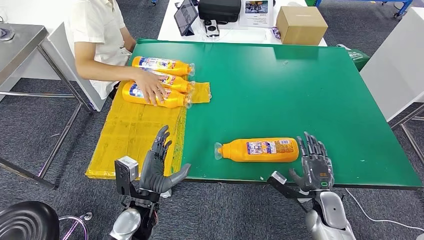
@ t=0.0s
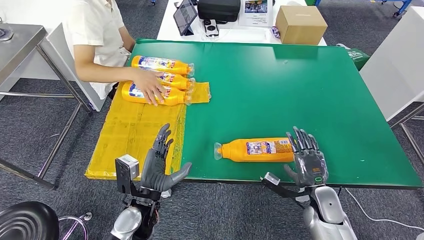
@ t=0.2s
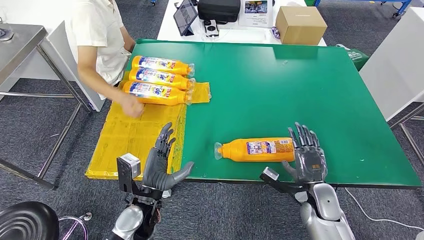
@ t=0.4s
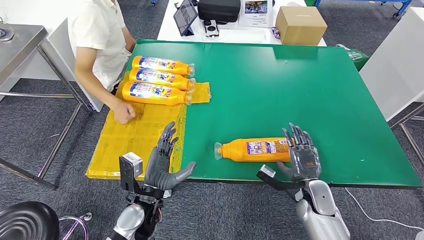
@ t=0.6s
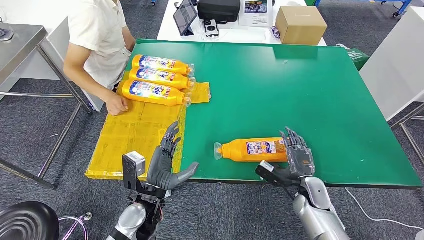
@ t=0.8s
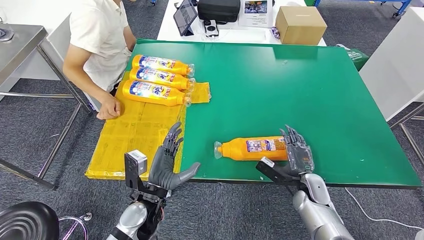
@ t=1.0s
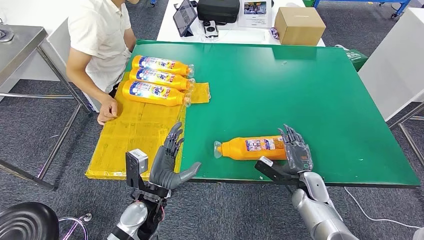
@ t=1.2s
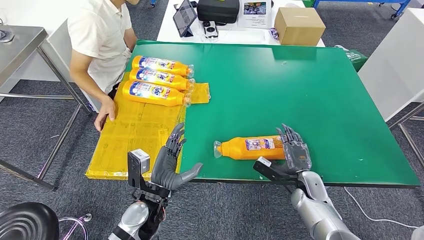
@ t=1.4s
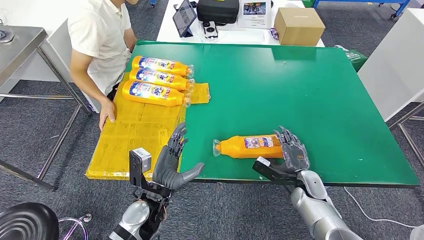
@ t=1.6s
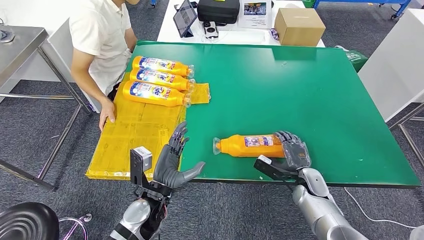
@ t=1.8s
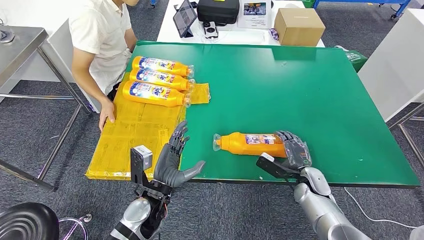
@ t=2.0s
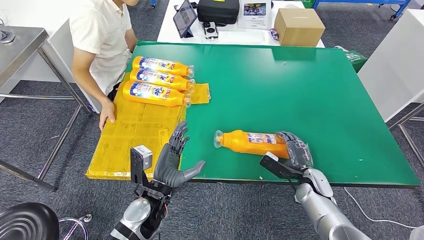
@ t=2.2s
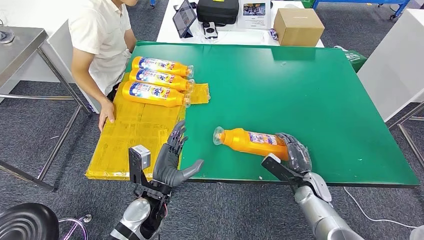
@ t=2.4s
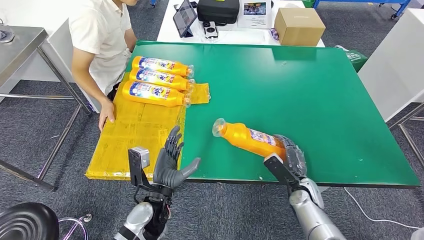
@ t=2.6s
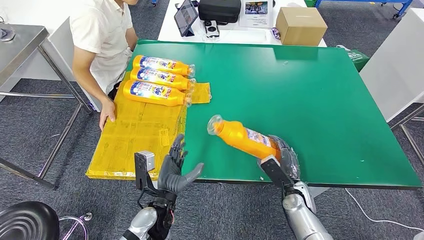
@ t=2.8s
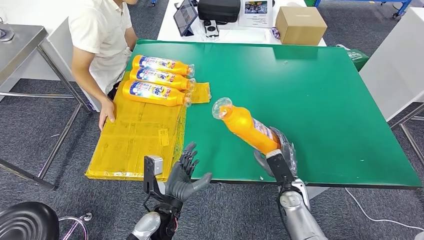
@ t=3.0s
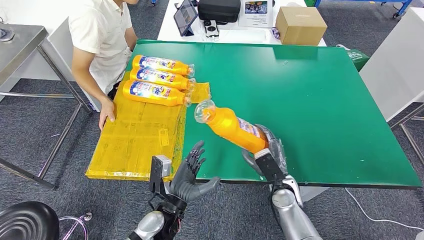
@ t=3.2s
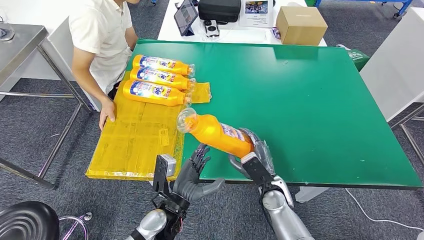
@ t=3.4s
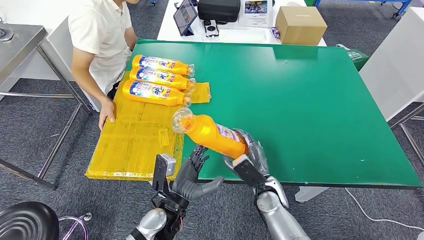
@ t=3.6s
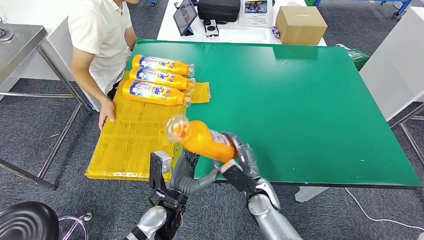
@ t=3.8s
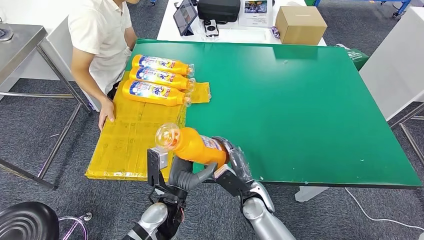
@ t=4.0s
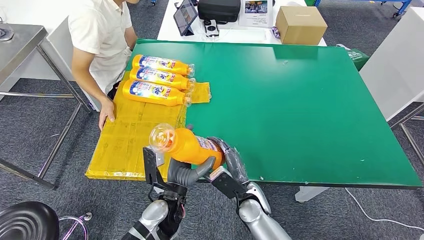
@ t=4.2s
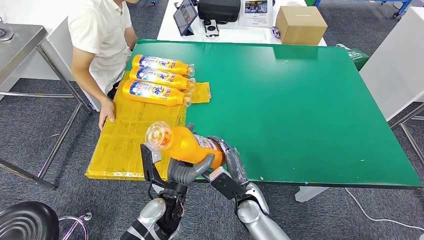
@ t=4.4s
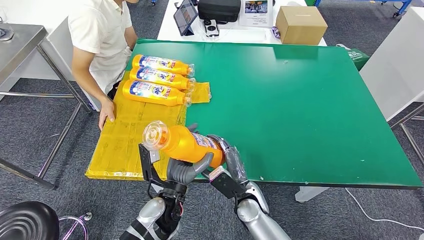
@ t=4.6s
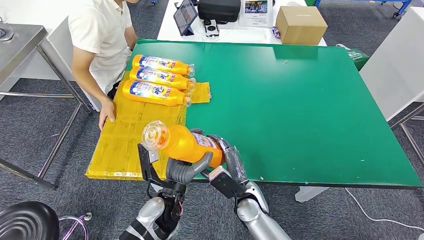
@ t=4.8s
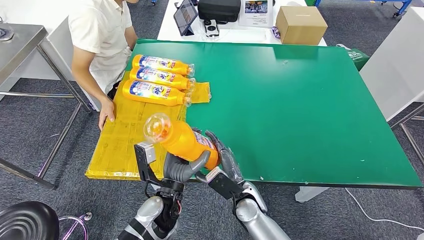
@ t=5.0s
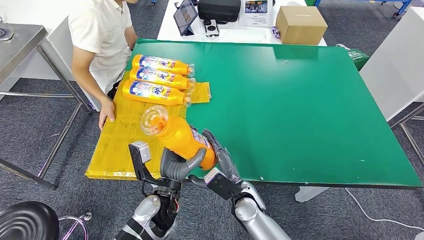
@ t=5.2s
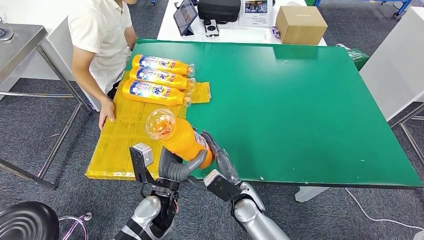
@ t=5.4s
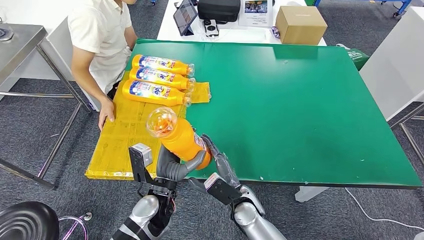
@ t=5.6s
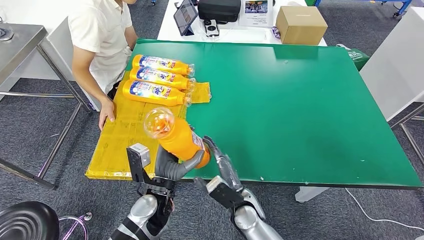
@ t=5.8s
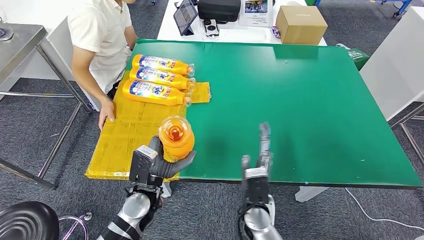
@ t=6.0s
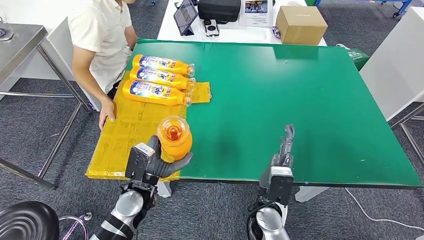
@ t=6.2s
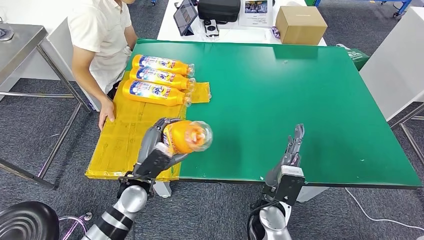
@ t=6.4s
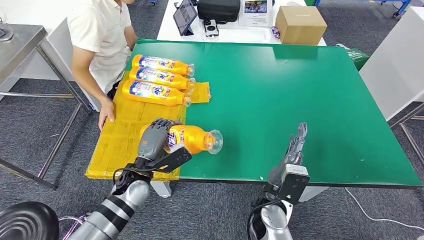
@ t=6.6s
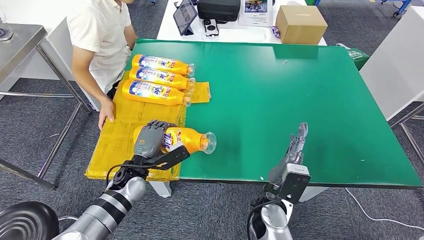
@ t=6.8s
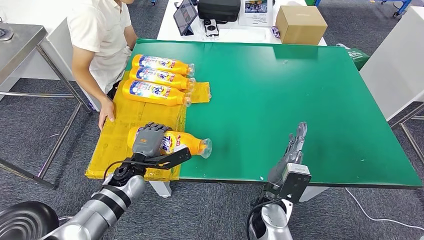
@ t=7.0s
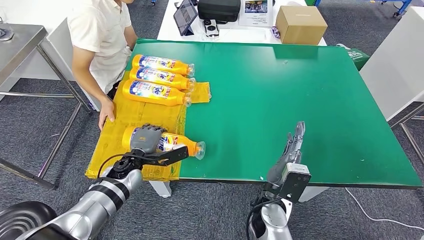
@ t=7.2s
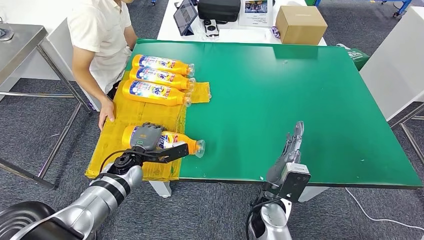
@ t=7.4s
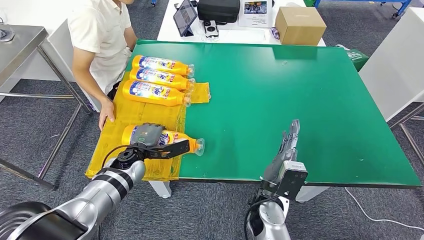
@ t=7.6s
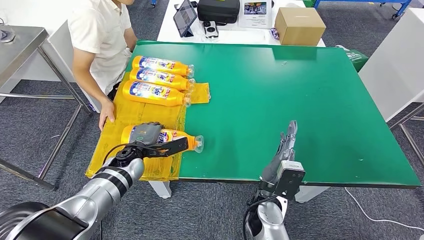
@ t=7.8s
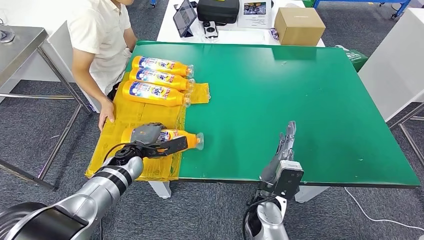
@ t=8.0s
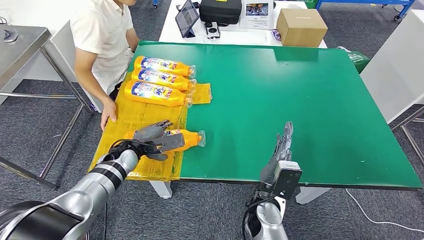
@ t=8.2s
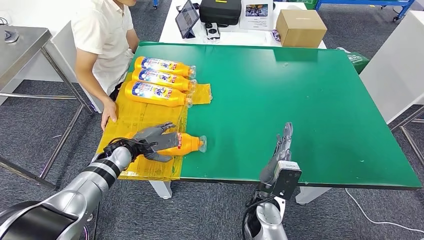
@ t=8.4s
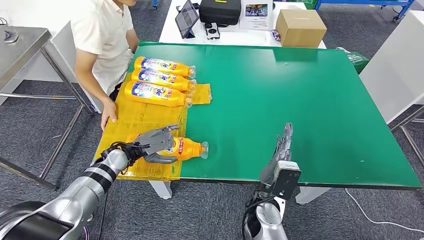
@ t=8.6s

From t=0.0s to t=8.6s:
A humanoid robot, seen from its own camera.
Step, from t=0.0s to t=4.6s: Pick up the bottle from the table.
Step, from t=4.8s to t=8.4s: Flip the bottle to face forward.
From t=0.0s to t=1.4s: The right hand goes roughly 5 cm forward.
From t=2.8s to t=4.4s: The right hand goes some 15 cm to the left.
From t=4.4s to t=5.8s: There are only small adjustments of the hands.
From t=5.8s to t=7.2s: The left hand heads forward and to the left, covering approximately 15 cm. Meanwhile the right hand travels upward by some 5 cm.
